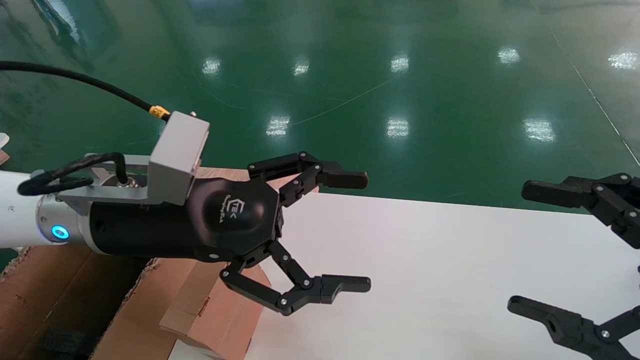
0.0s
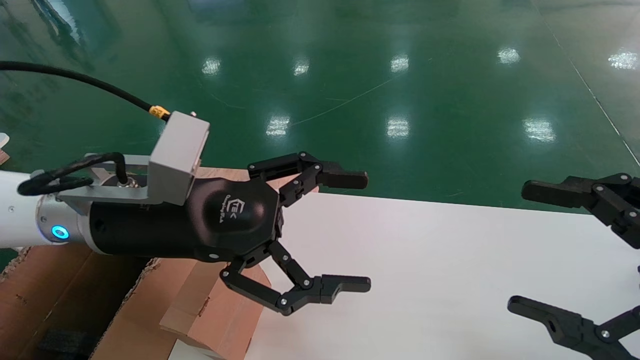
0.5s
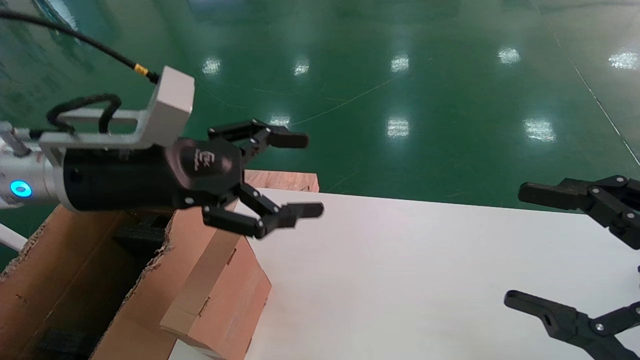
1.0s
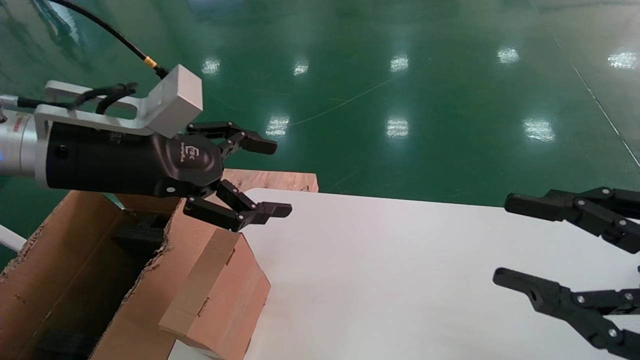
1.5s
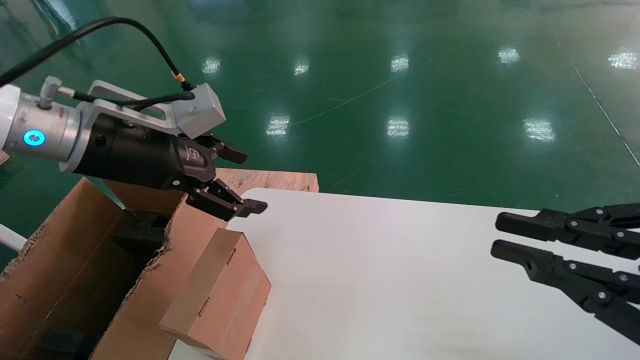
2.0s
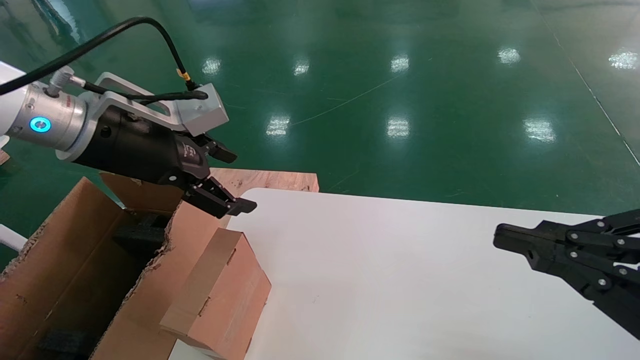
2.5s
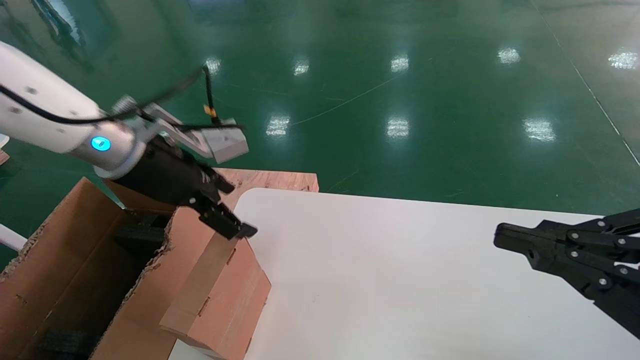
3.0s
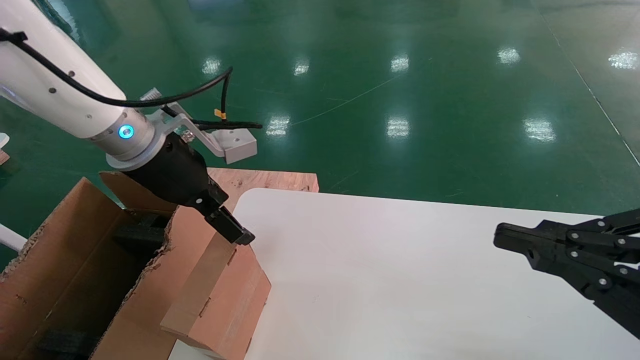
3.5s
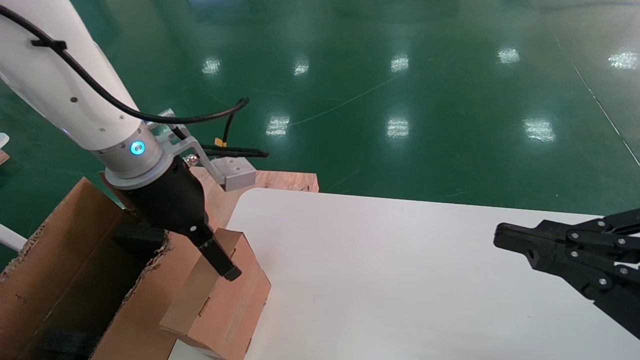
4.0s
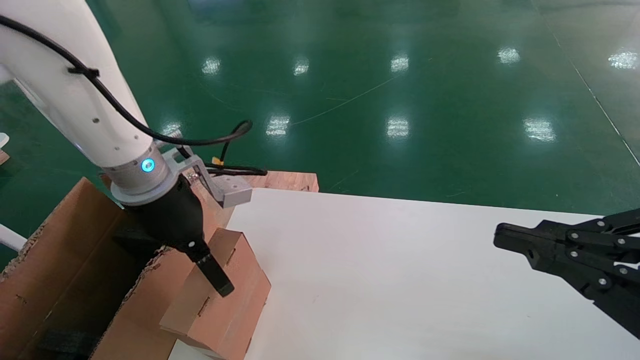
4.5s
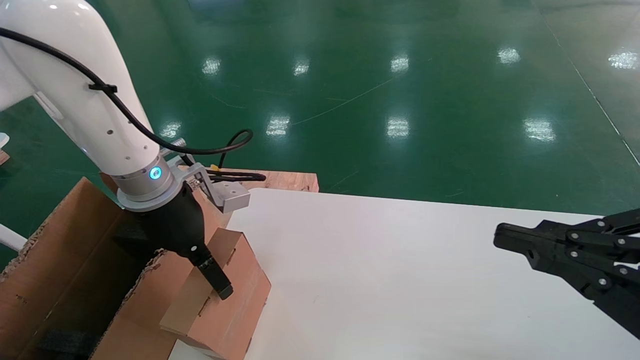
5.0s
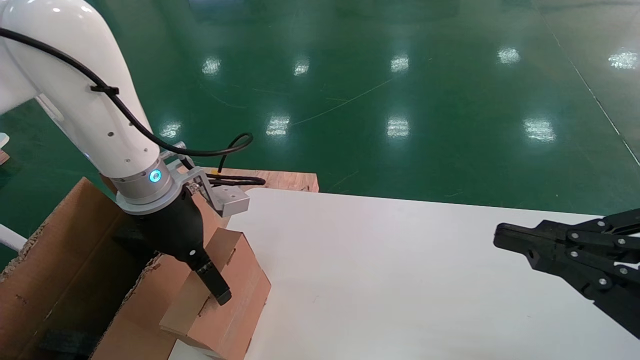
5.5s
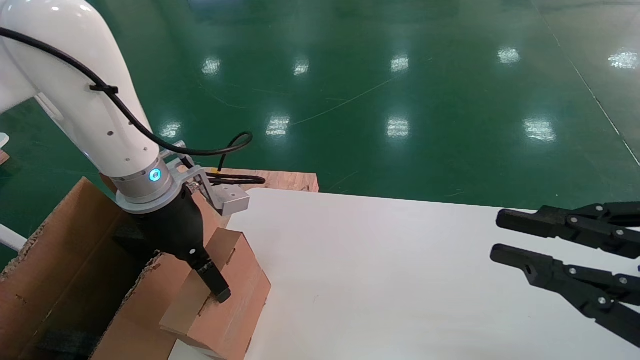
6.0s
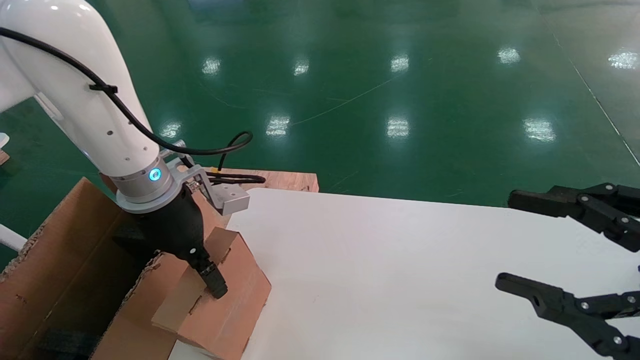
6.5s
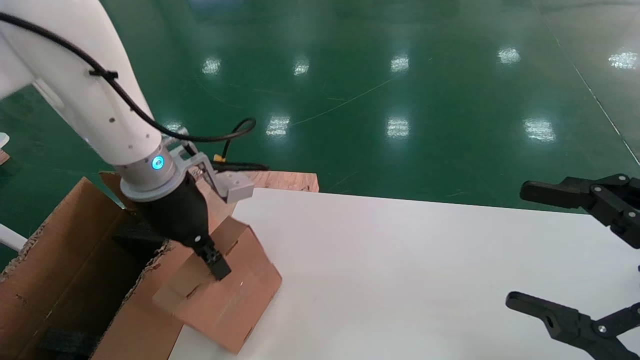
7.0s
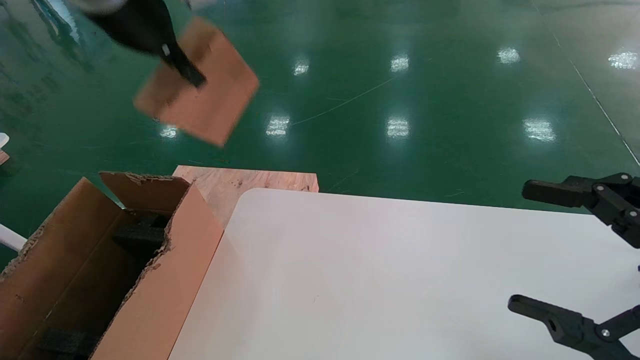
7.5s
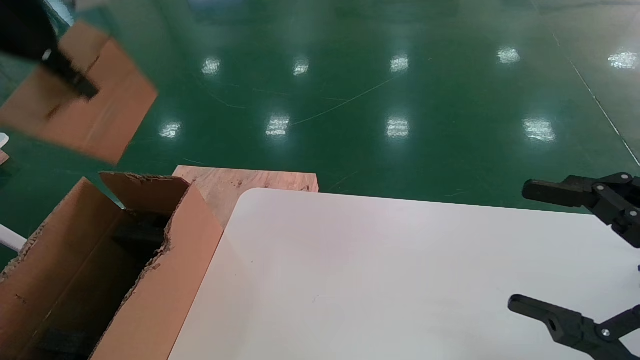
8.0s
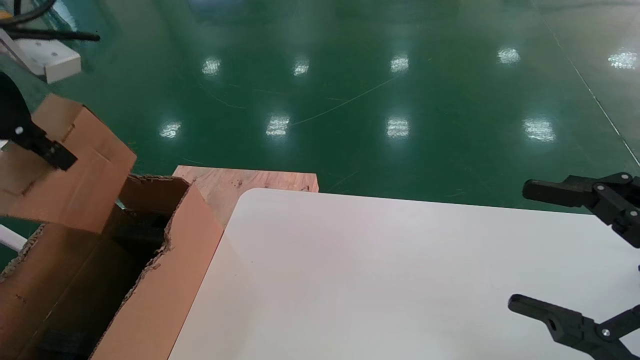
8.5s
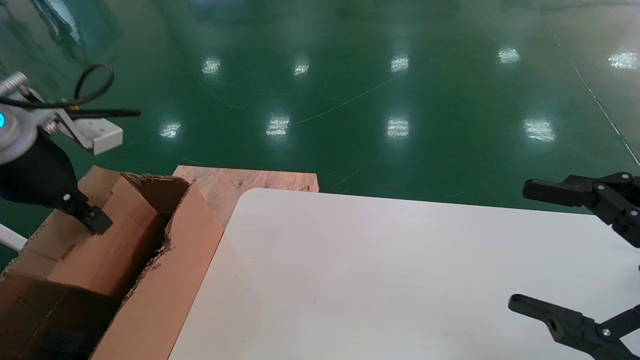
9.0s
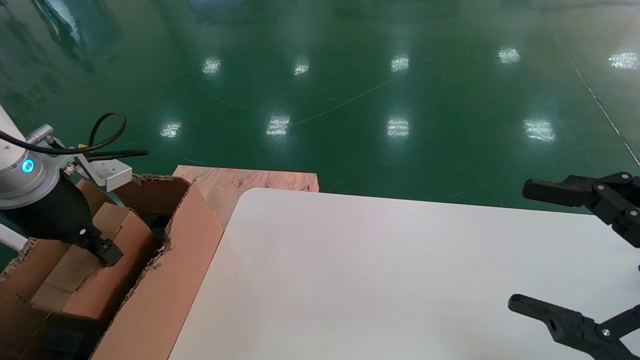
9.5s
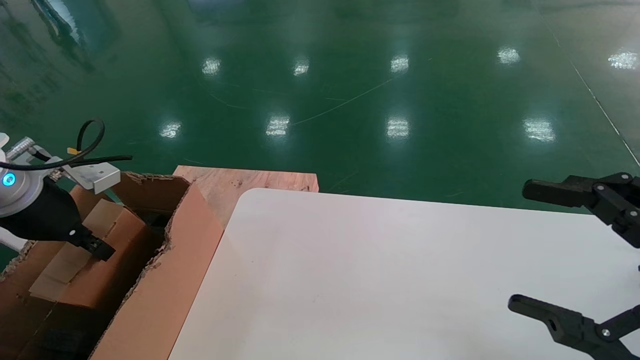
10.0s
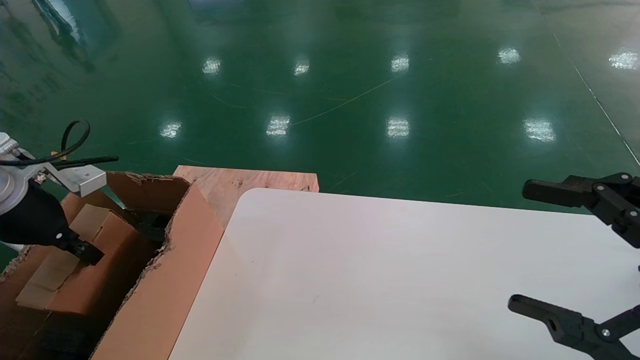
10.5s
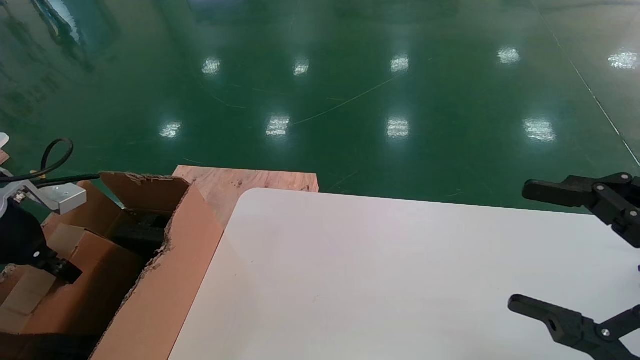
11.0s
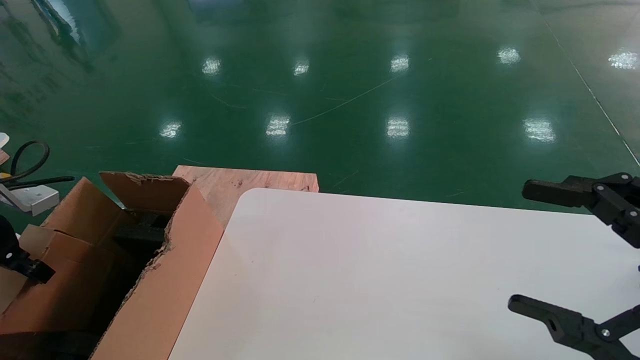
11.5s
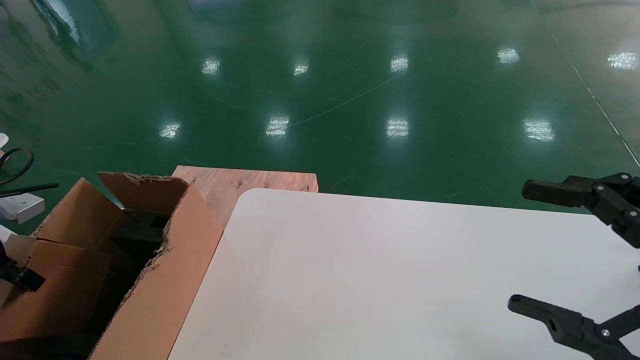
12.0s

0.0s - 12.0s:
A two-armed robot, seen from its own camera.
Task of the whole recording: place the small box on the table into the large box on the left.
Step, 1.5s - 6.5s: Pick up the mouse and the power cord paper box.
0.0s - 2.0s: The right gripper closes; the left gripper shifts about 10 cm to the left and upward.
2.0s - 4.0s: The left gripper moves approximately 5 cm.
4.0s - 6.0s: The grippers stay close to where they were, moving slightly.
6.0s - 8.0s: The right gripper opens. The left gripper is displaced upward and to the left by roughly 25 cm, and closes its fingers.
8.0s - 10.0s: The left gripper goes some 20 cm downward.
10.0s - 12.0s: The left gripper goes roughly 10 cm to the left.

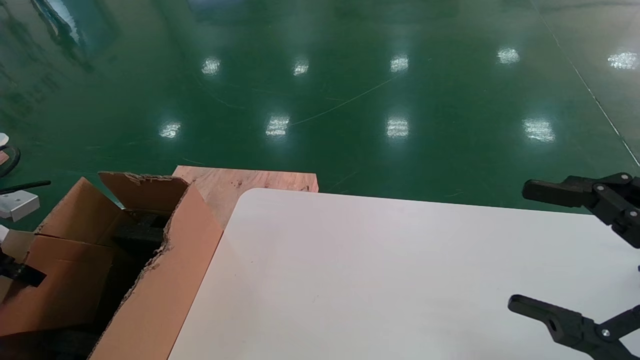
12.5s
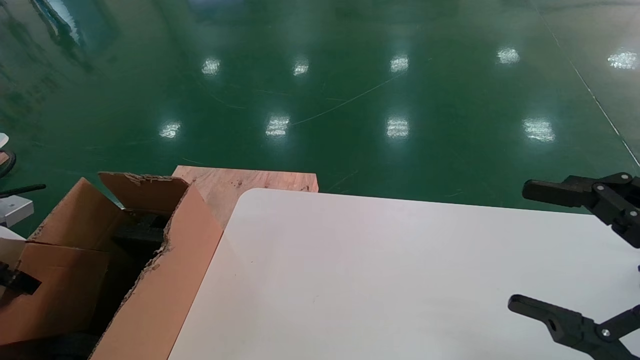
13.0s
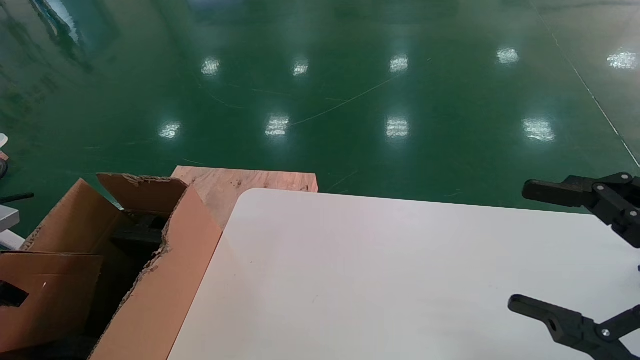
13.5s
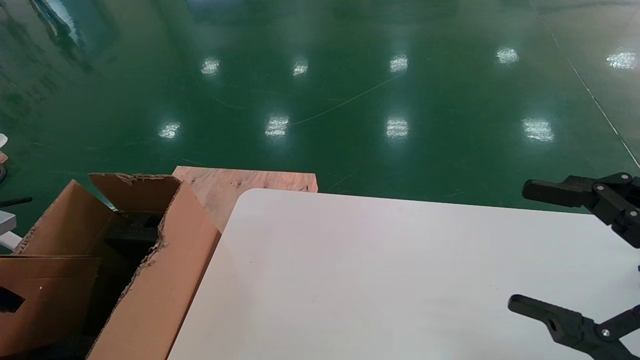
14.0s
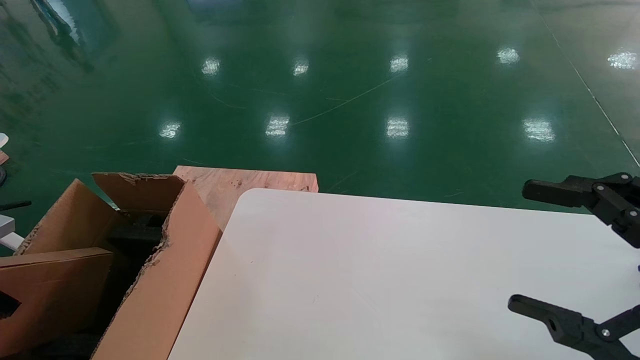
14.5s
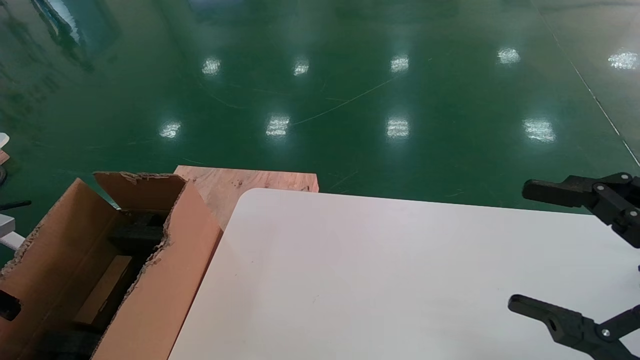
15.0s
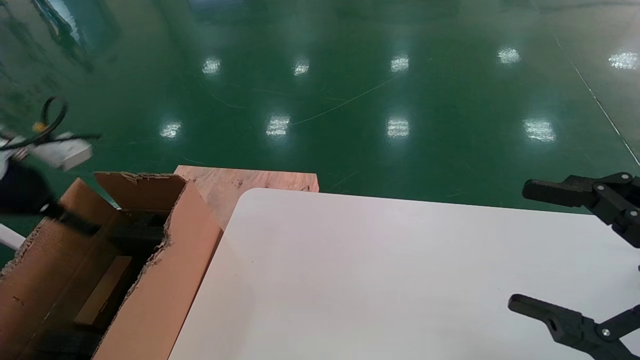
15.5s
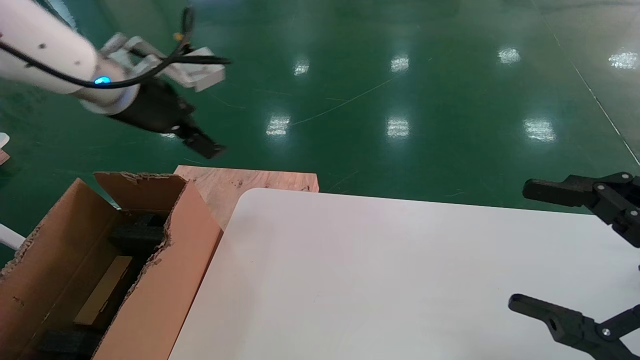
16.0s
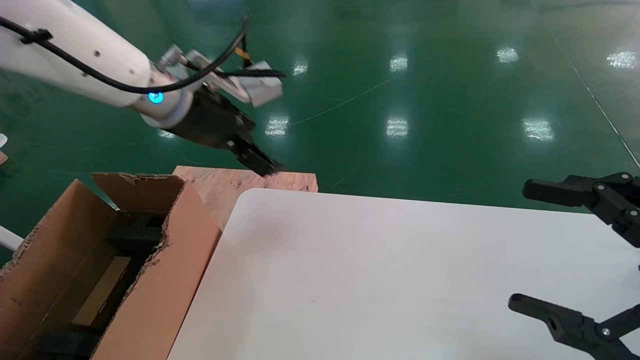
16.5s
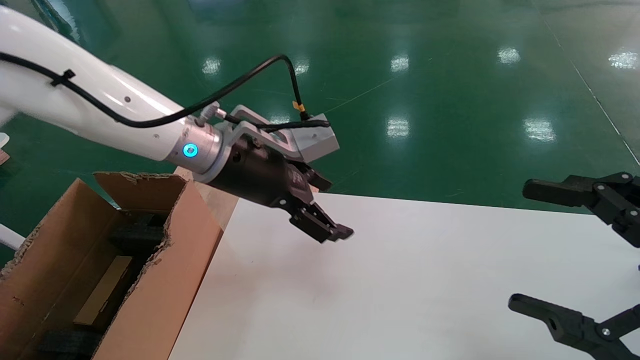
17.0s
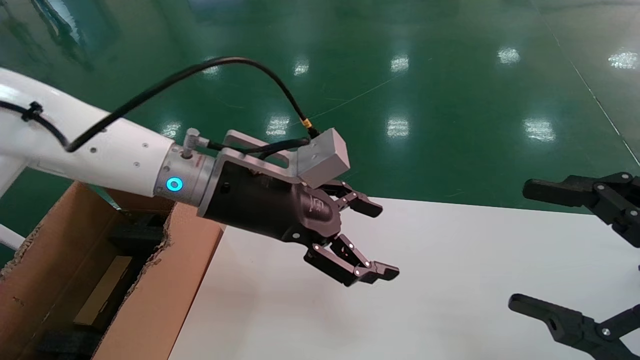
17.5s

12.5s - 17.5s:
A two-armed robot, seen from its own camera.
Task of the whole recording: place the small box on the table into the large box on the left.
Step, 12.5s - 15.0s: Place the mouse and the power cord paper box into the container.
12.5s - 15.0s: The left gripper opens up.
15.0s - 17.5s: The left gripper is displaced to the right by approximately 40 cm.
